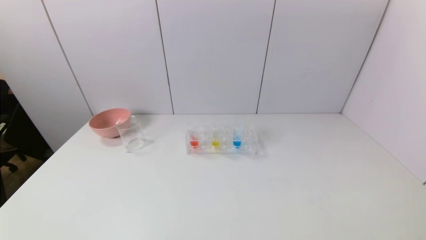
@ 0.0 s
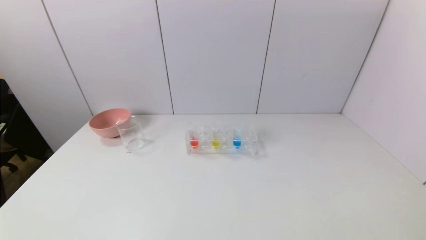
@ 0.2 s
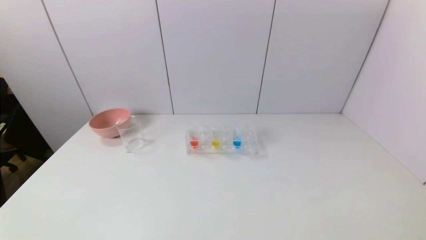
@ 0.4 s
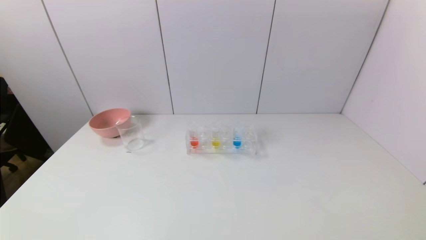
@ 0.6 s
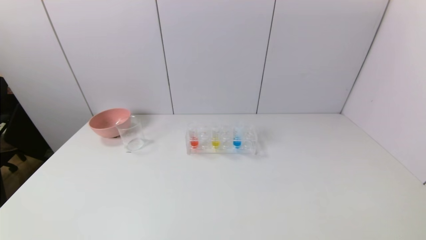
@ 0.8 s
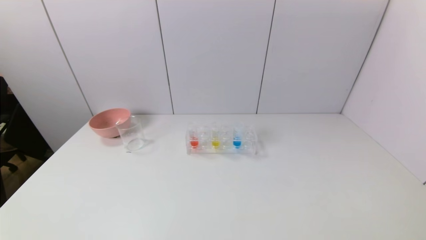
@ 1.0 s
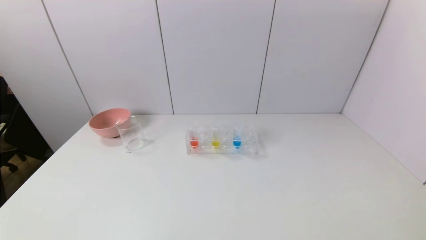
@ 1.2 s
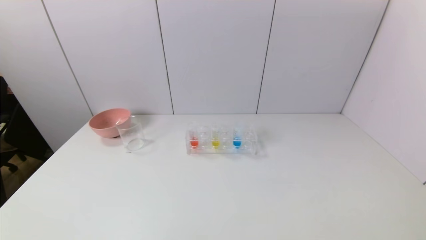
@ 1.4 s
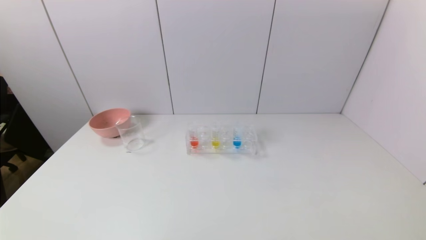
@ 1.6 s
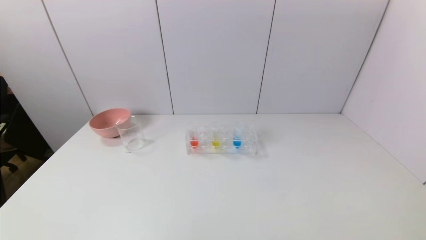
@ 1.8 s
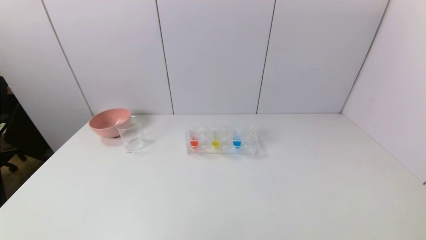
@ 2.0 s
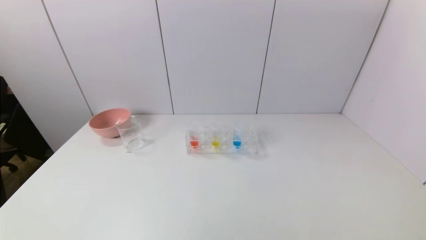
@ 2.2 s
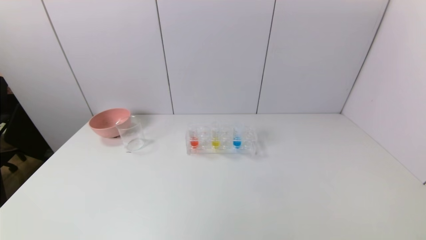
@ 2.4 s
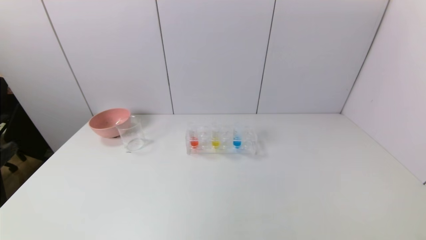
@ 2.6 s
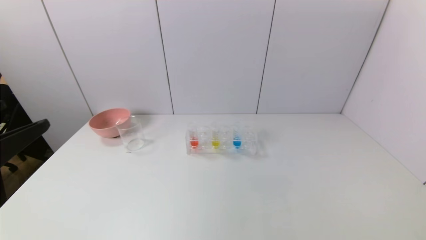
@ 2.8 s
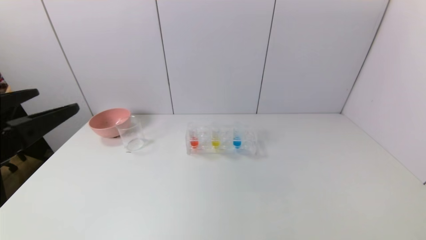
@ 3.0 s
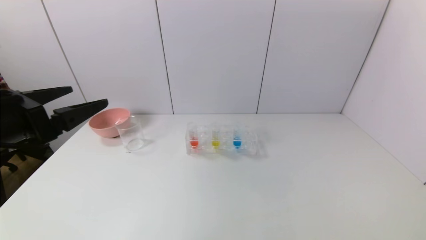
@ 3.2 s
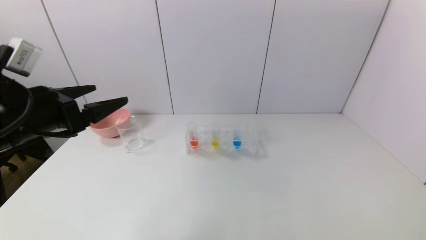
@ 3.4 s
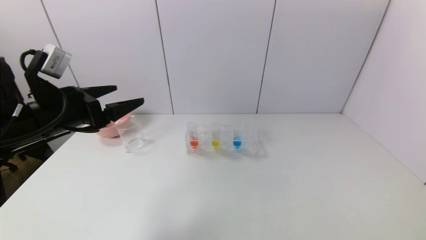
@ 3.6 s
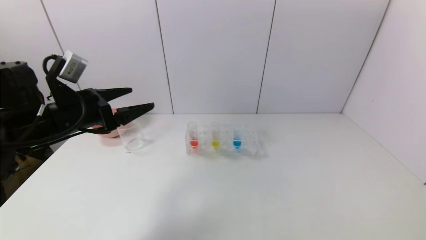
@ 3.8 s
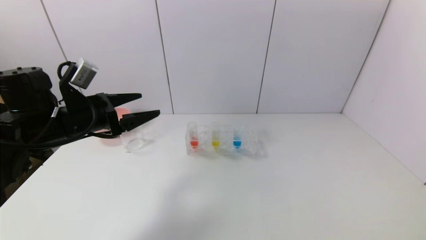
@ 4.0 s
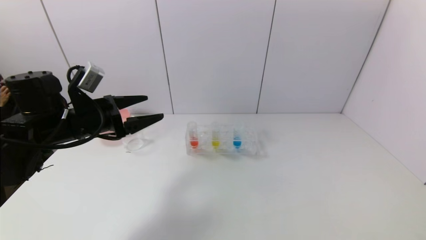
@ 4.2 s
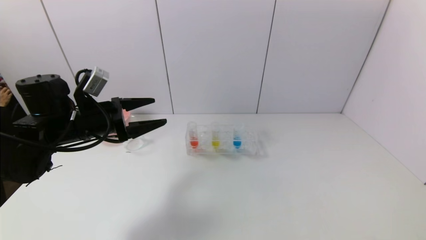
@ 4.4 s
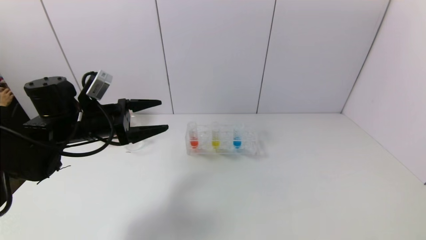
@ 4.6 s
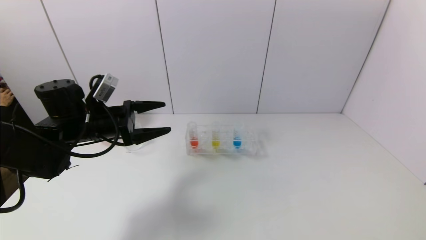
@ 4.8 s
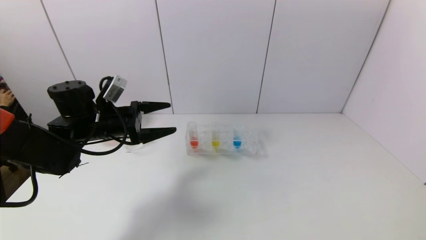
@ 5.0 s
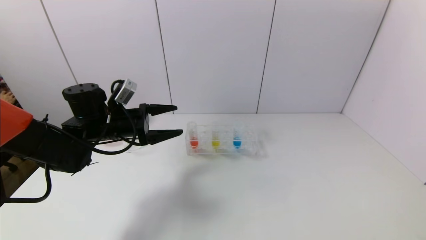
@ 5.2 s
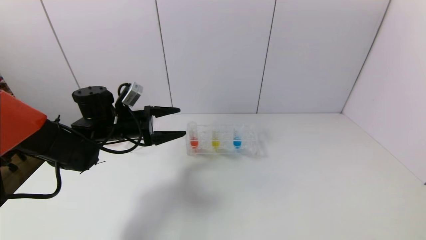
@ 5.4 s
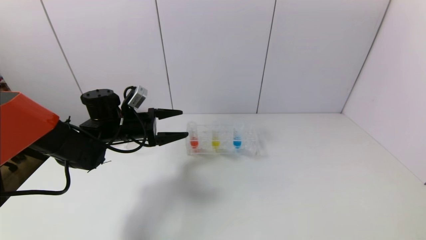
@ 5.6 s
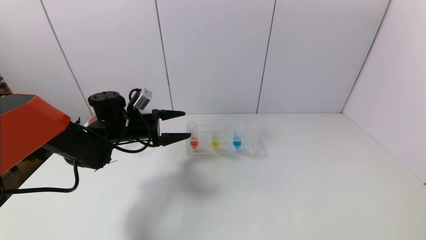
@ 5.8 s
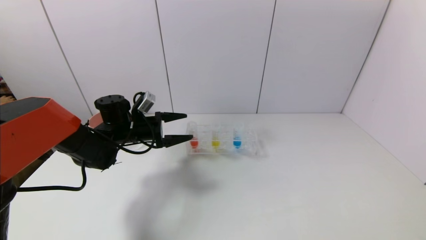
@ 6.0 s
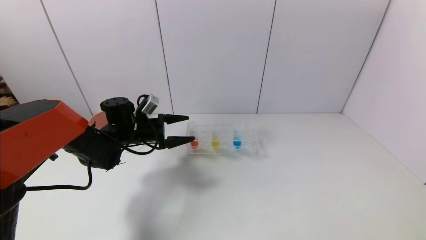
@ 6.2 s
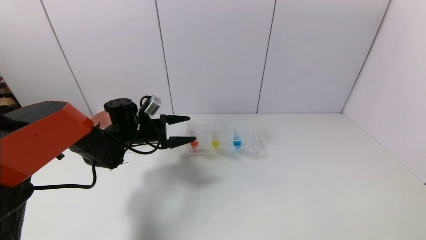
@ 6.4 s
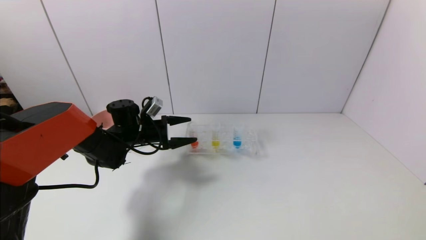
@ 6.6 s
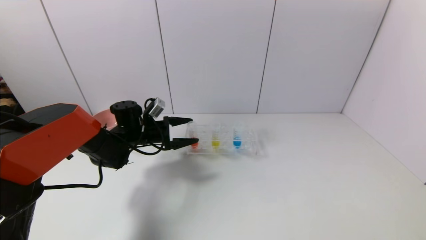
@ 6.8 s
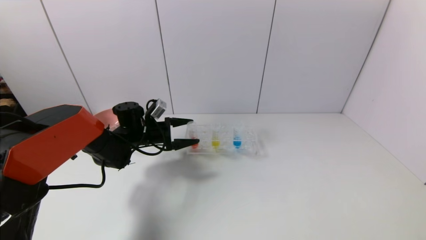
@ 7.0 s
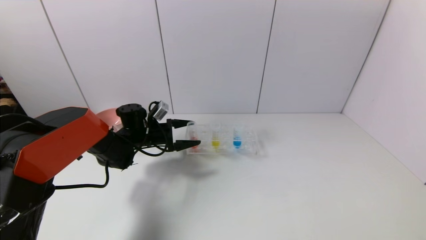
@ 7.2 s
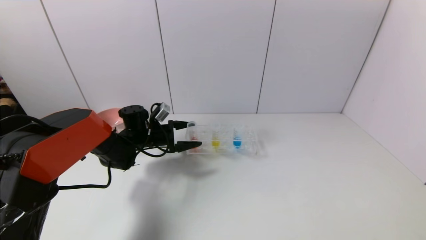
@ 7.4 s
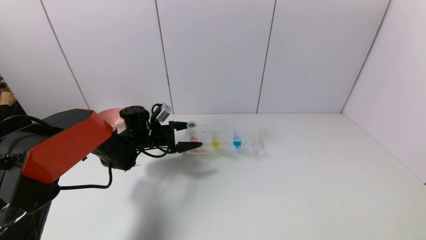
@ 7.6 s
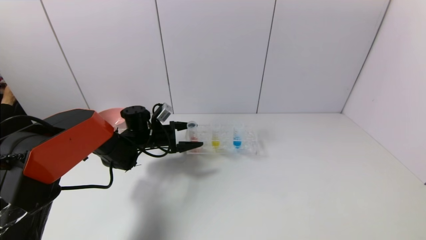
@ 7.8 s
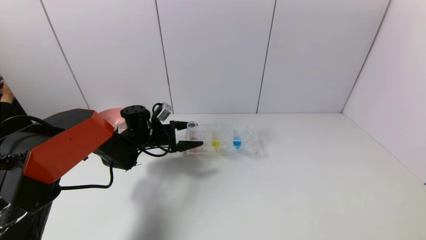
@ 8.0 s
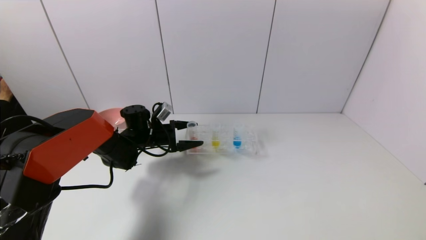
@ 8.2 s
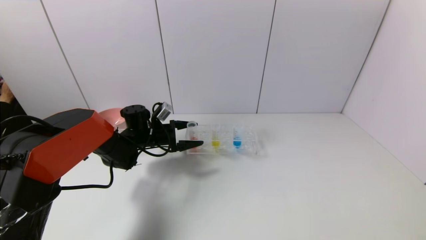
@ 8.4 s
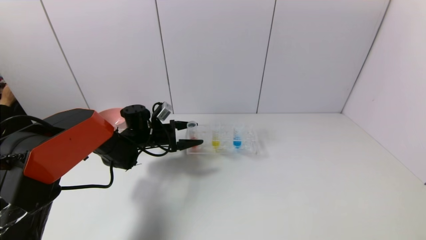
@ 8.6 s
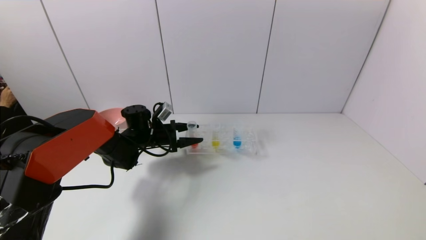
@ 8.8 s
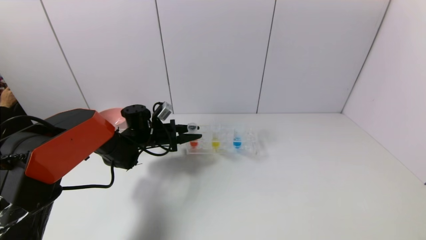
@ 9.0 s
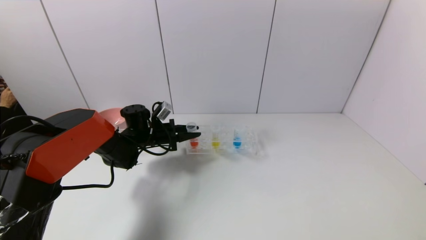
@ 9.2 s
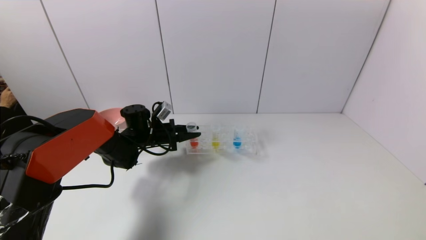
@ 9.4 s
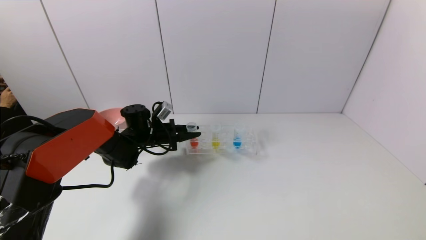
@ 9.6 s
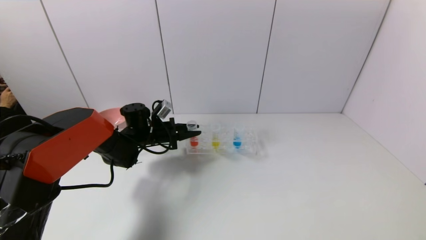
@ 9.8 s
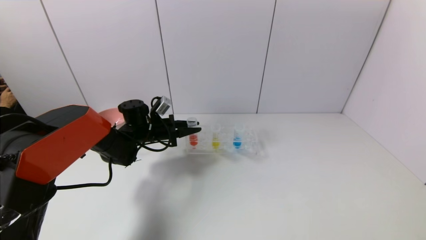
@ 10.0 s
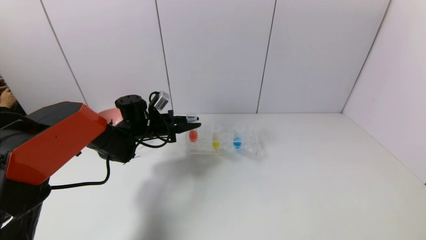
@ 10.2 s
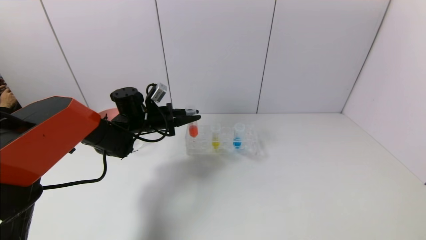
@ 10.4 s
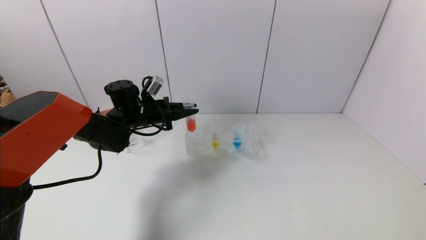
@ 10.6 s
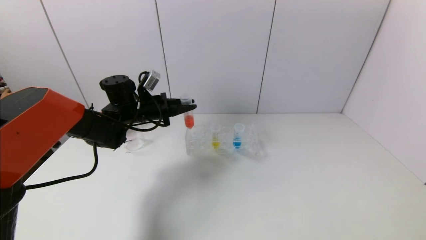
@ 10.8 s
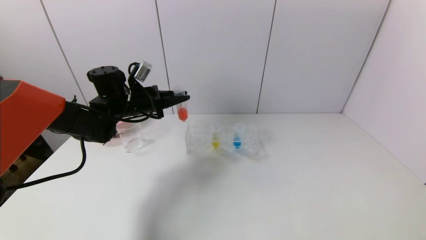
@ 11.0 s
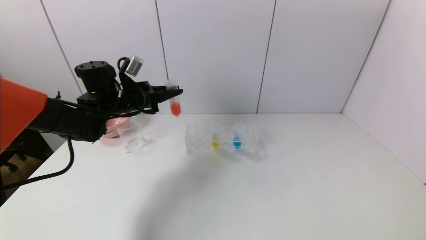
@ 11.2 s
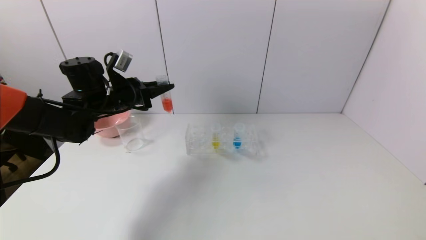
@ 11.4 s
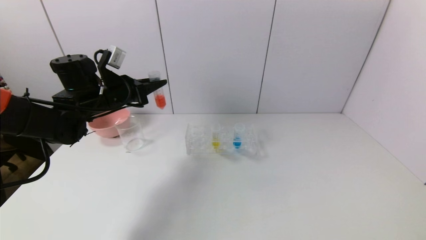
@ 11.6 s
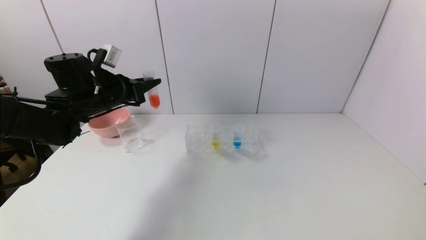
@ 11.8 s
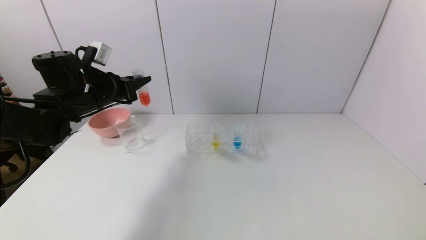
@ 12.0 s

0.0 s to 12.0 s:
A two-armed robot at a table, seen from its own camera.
Task of the whole recording: pick up the test tube with red pigment and the test tube with blue pigment by grippers and pour them into the container.
Step, 0.0 to 9.4 s: Grasp the red reagent with the left gripper.
1.6 to 3.0 s: The left gripper travels forward and upward by roughly 25 cm.
3.0 to 4.4 s: The left gripper goes approximately 20 cm forward and downward.
4.4 to 6.0 s: The left gripper heads forward and downward, covering roughly 10 cm.
6.0 to 7.6 s: The left gripper heads downward, covering some 5 cm.
7.6 to 9.0 s: The left gripper closes its fingers.
9.0 to 10.4 s: The left gripper travels upward by roughly 5 cm.
10.4 to 12.0 s: The left gripper travels upward, to the left and backward by approximately 15 cm.

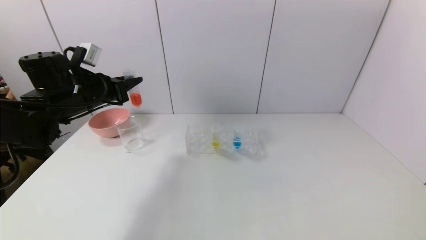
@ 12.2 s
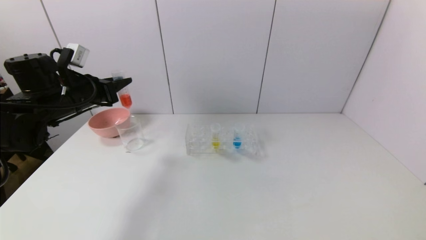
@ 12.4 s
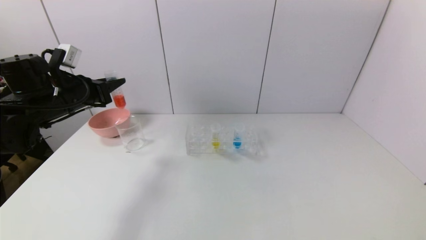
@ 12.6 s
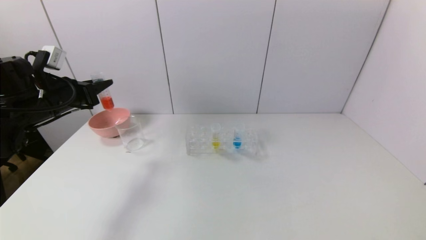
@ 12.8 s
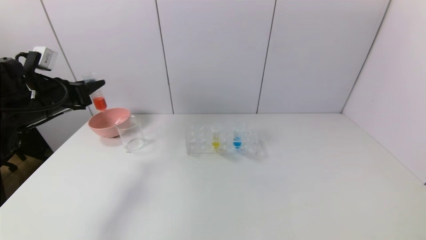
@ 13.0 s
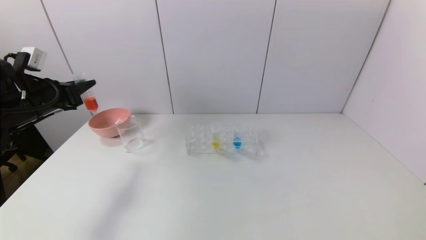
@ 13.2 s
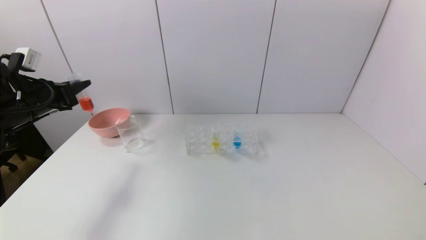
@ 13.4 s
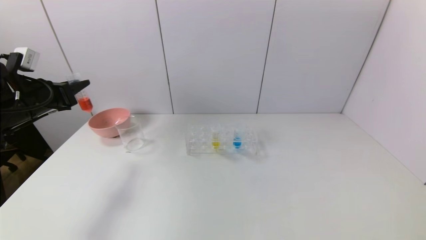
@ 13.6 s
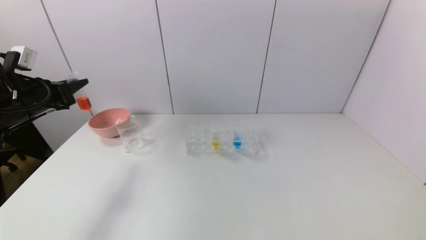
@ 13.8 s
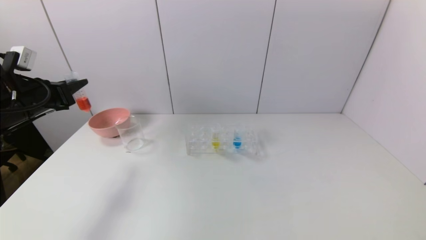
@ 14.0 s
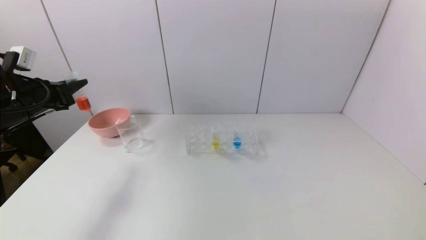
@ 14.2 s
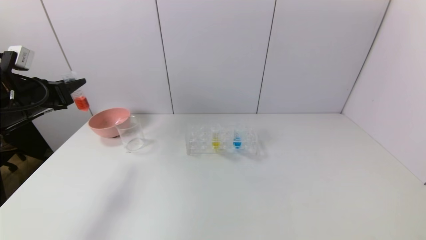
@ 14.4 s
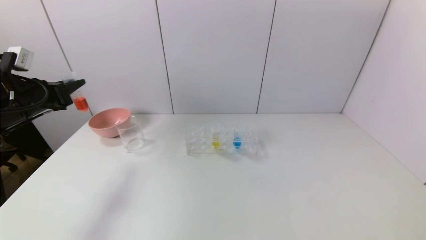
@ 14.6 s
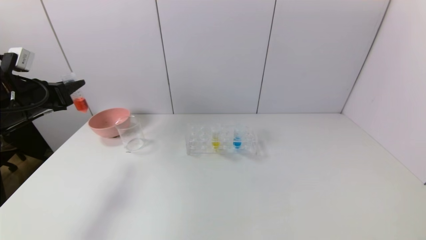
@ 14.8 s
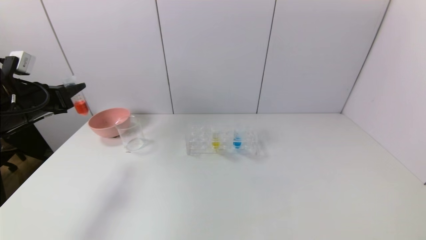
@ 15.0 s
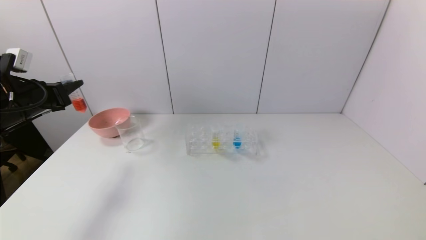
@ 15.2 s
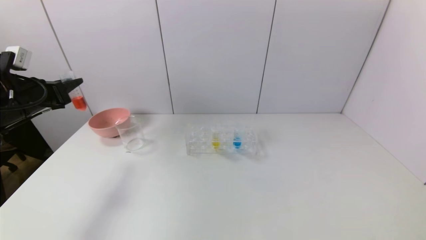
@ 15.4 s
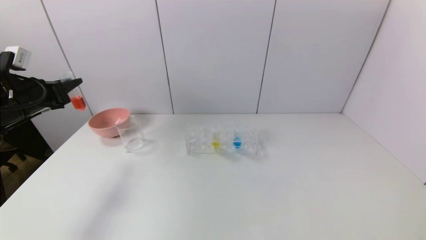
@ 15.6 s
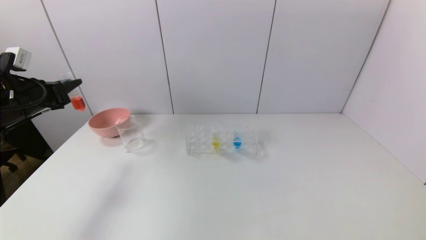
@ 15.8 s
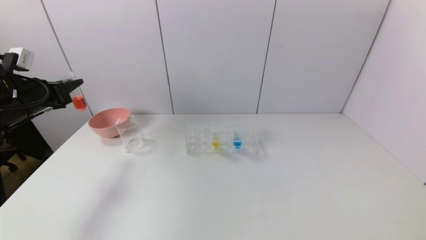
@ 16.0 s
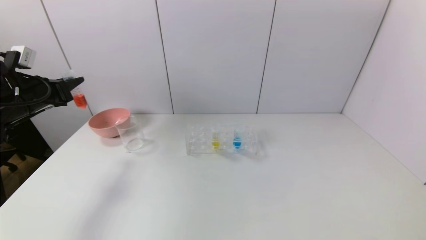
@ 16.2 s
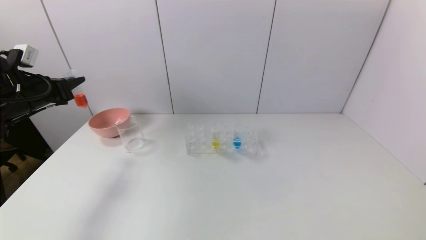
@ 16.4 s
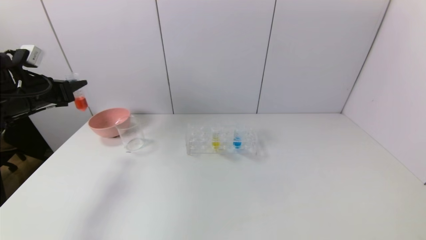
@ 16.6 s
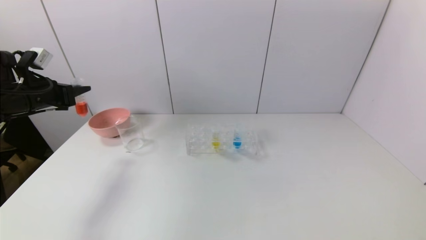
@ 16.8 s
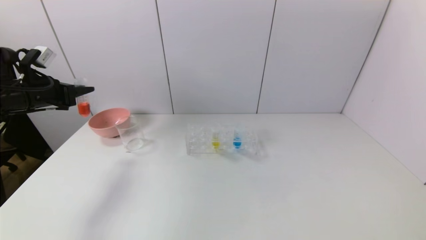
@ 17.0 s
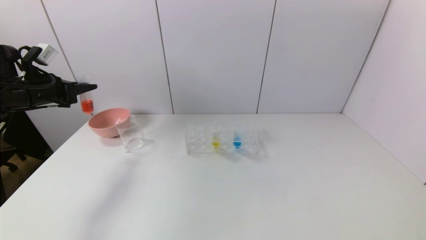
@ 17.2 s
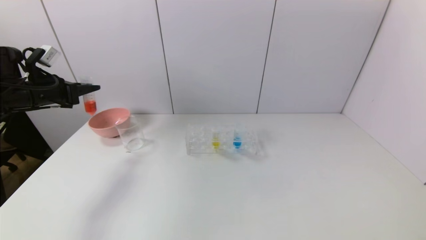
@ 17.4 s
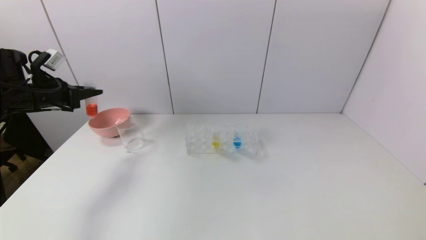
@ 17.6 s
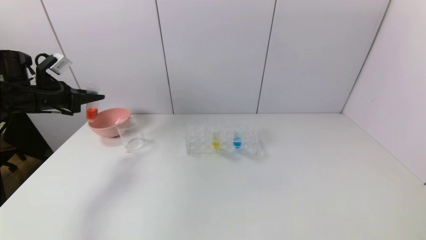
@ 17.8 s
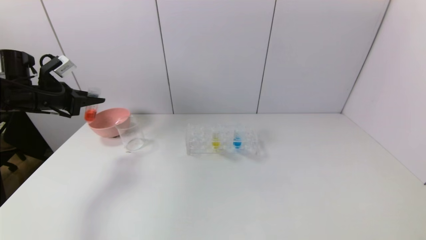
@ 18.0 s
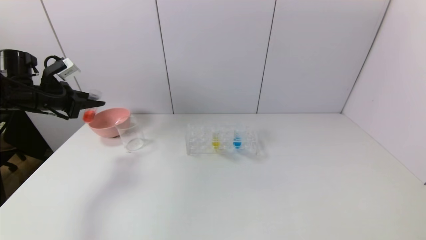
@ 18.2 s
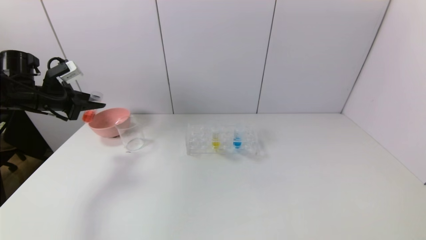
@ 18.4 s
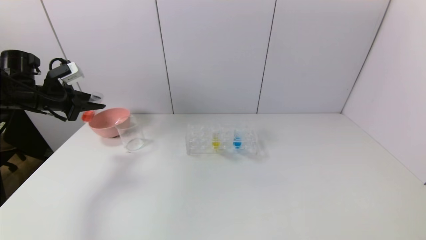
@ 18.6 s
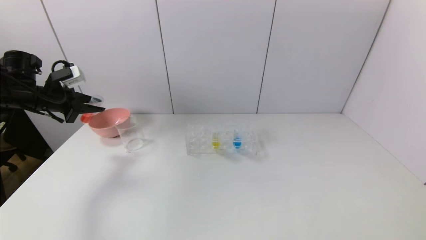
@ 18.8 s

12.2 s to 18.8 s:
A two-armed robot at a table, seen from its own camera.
Task of the whole recording: pick up the test tube with red pigment and the test tube with blue pigment by grippers and pour them into the container.
12.2 to 13.8 s: The left gripper travels to the left by roughly 10 cm.
13.8 to 15.4 s: Both grippers stay about where they are.
15.4 to 17.2 s: The grippers stay close to where they were, moving slightly.
